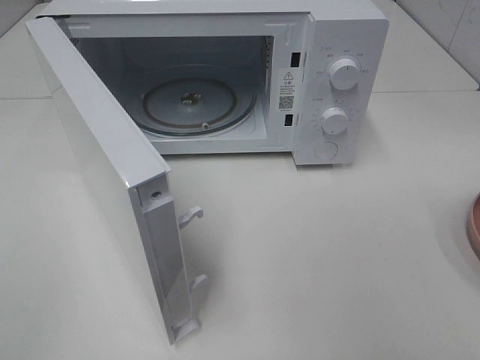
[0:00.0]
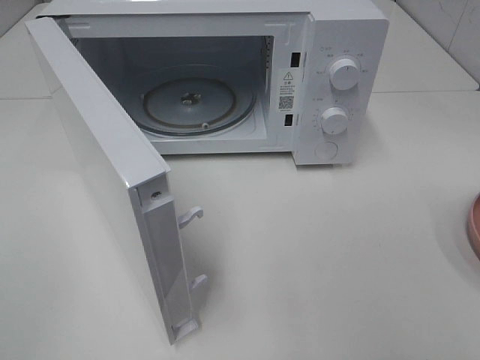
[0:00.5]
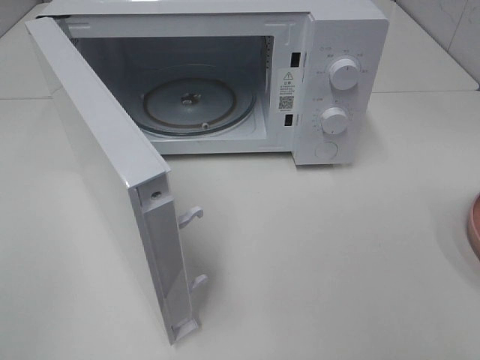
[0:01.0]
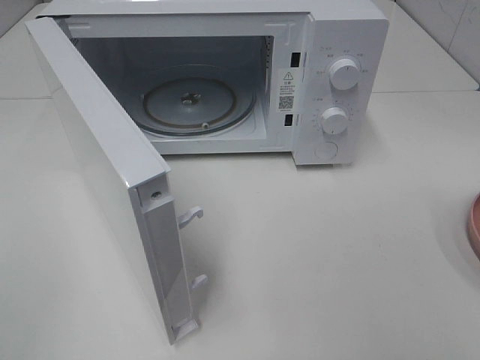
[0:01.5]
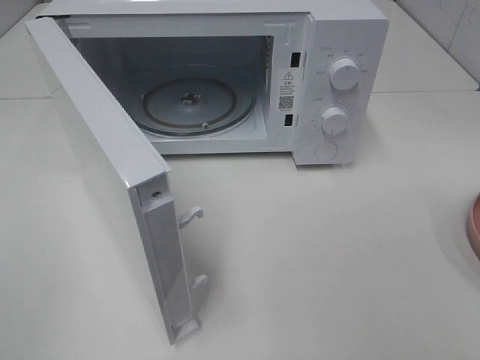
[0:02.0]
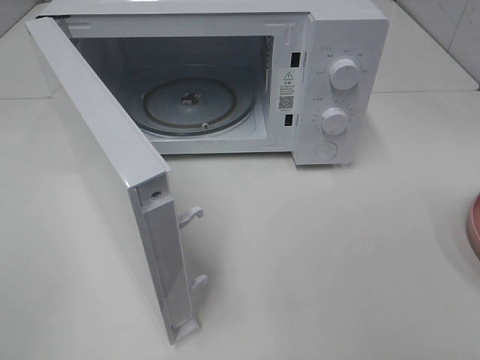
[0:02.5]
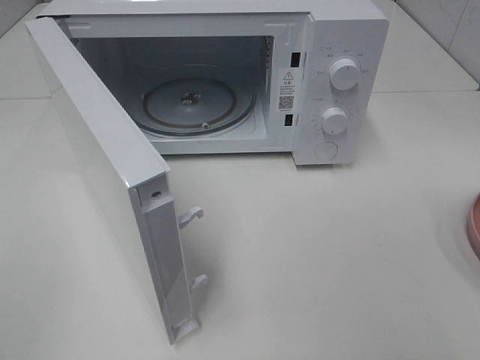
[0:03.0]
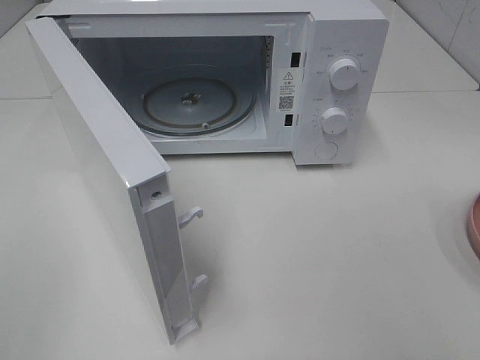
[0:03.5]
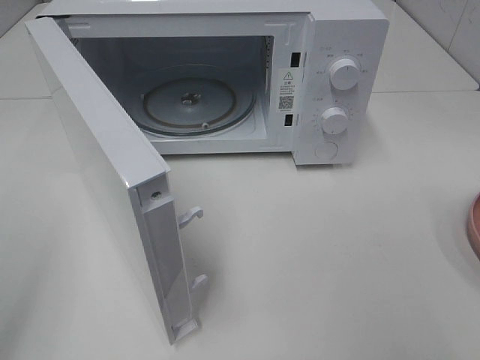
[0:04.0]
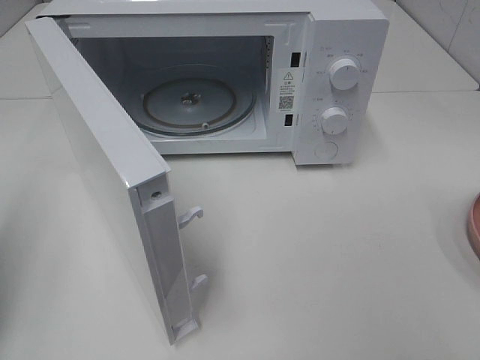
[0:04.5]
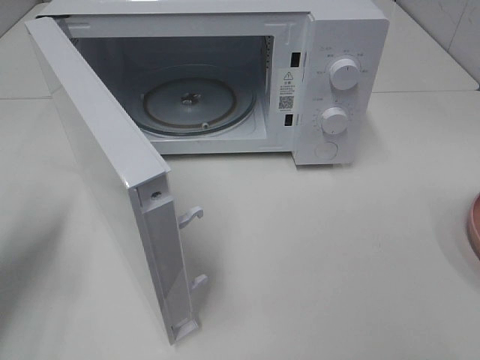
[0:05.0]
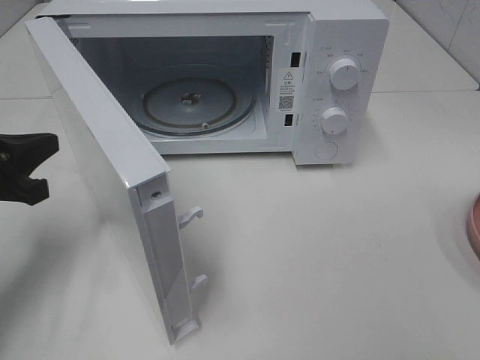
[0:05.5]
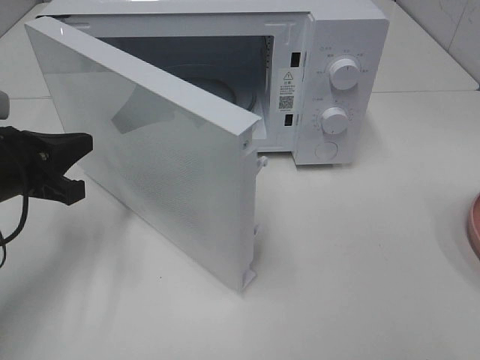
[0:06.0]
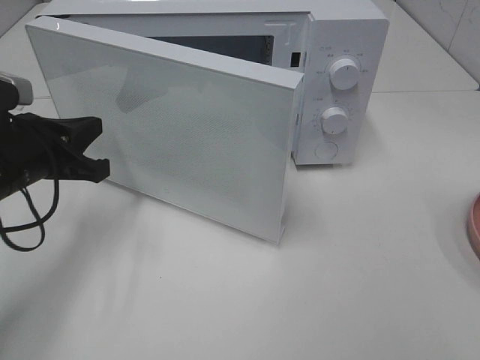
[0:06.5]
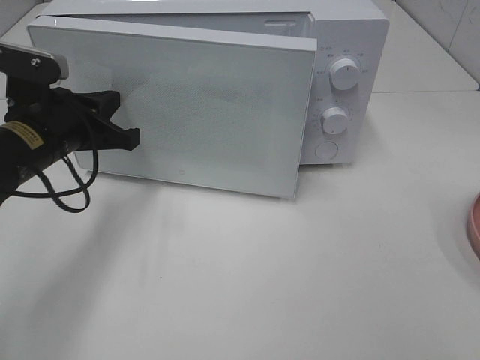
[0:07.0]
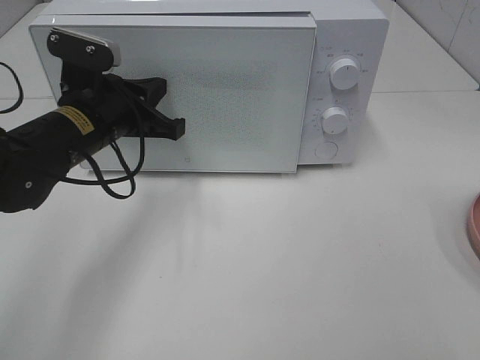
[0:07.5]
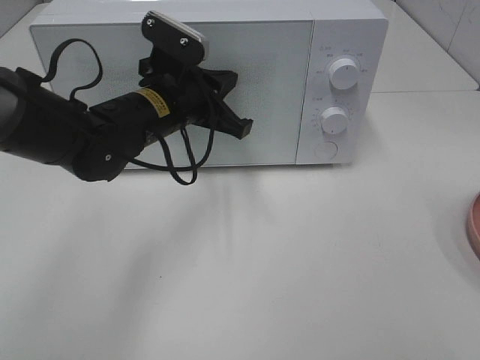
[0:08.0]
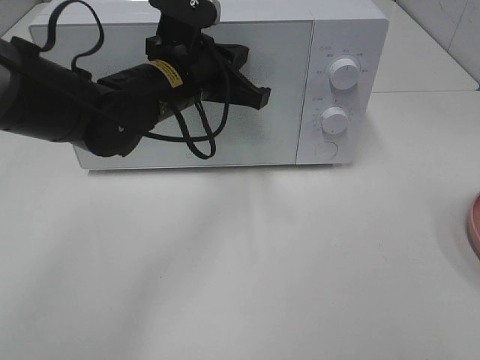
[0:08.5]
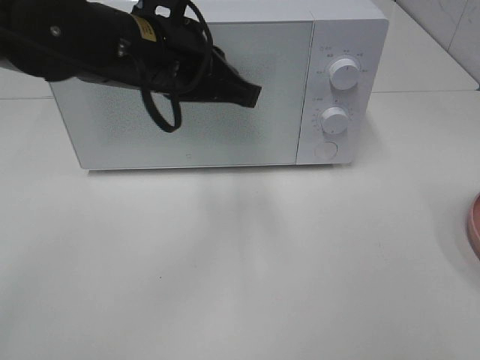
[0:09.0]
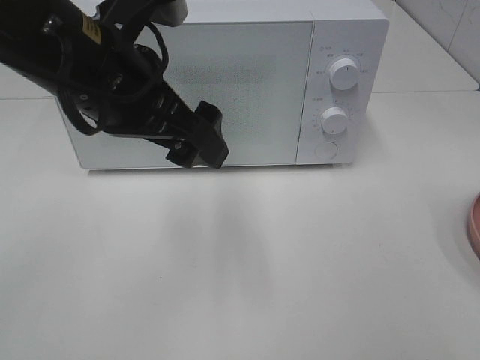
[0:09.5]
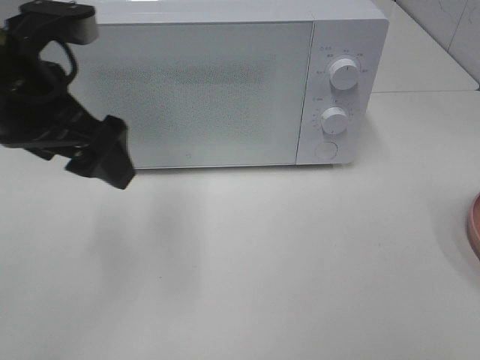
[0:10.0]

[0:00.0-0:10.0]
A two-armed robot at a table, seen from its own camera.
Task of the whole recording: Heat the burger.
Step, 0.0 to 7.5 s: Left hand: close the microwave door.
4.0 to 6.0 s: The left gripper moves forward, downward and to the right, roughly 25 cm, and closes its fingers.
6.0 to 8.0 s: The left gripper moves to the right and forward, approximately 20 cm.
8.0 to 10.0 s: The left gripper shifts about 20 cm to the left, upward and backward, and opens up.

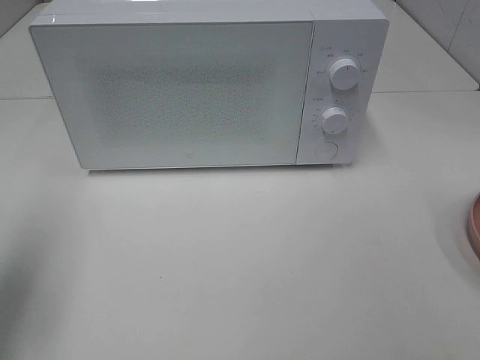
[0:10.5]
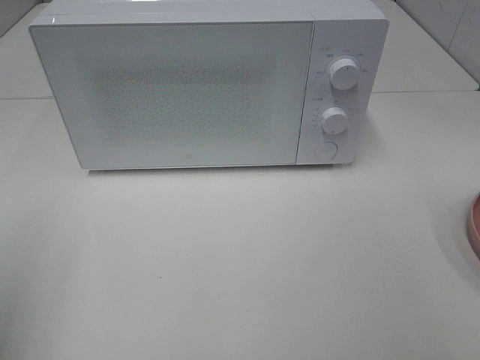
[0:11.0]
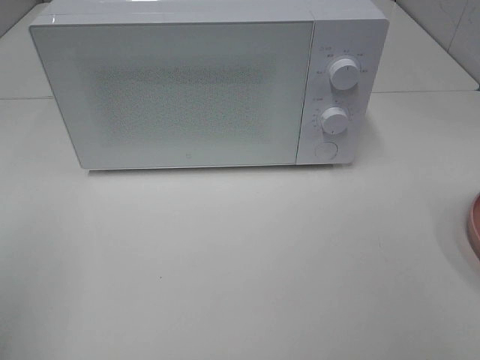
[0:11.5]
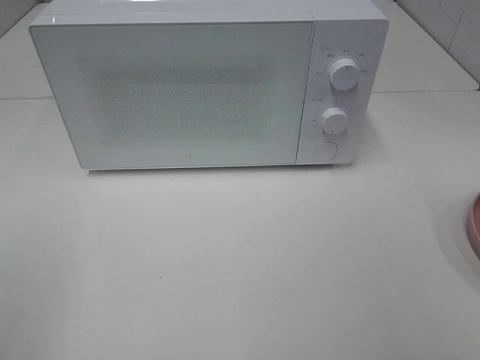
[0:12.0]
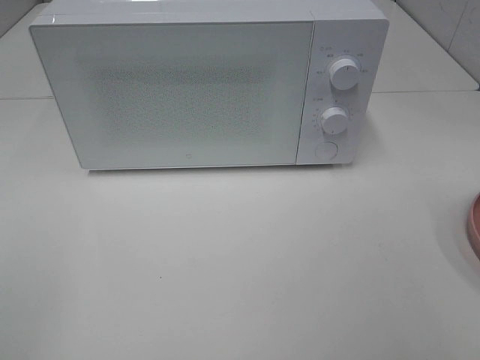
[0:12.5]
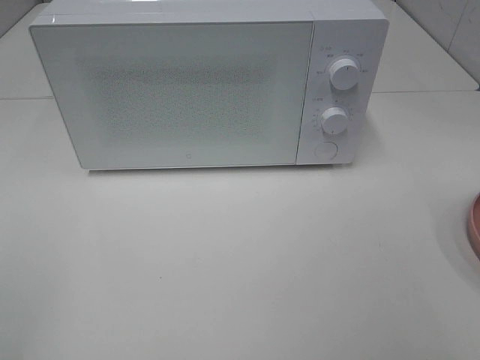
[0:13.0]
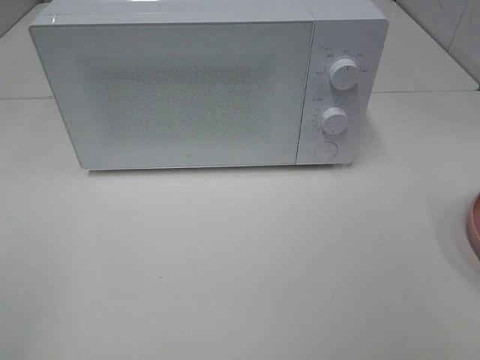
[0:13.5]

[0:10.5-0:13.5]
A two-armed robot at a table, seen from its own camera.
Task of the whole recording: Heat the burger.
10.5 to 12.0 s: The left gripper heads backward, covering roughly 15 cm.

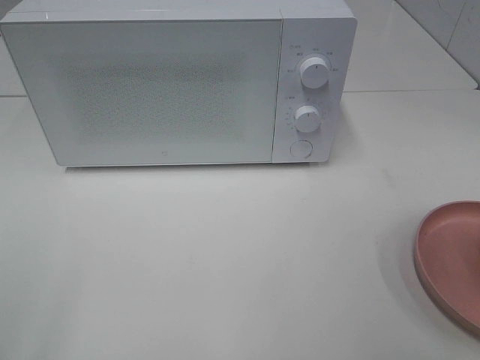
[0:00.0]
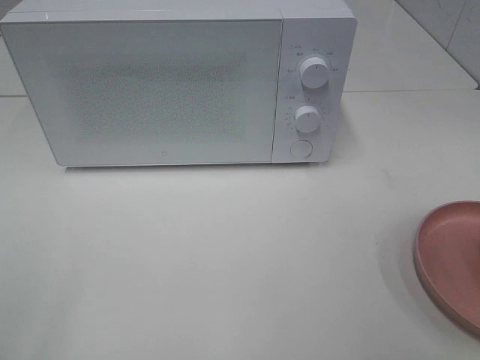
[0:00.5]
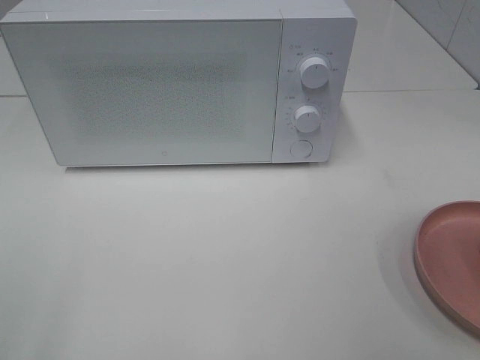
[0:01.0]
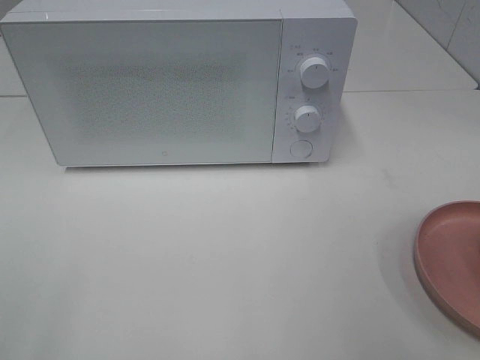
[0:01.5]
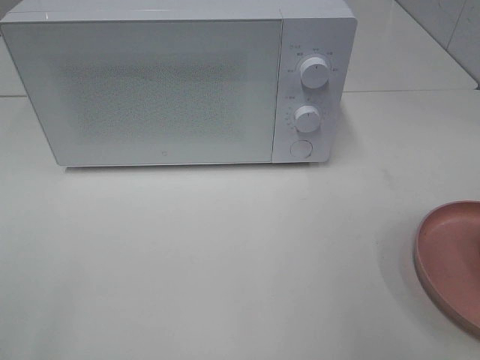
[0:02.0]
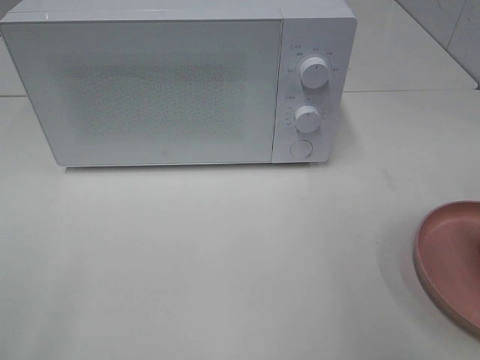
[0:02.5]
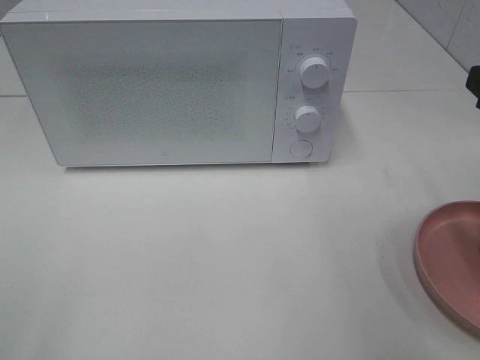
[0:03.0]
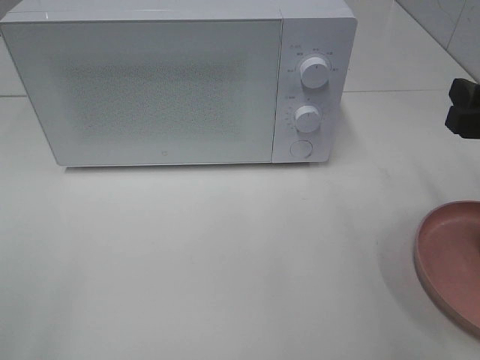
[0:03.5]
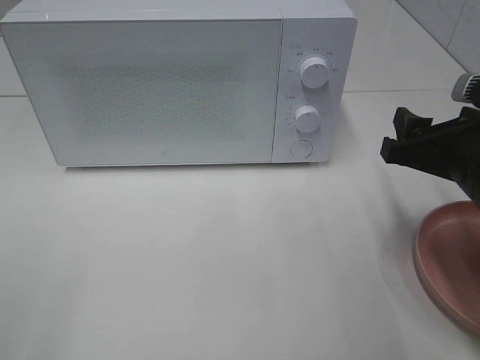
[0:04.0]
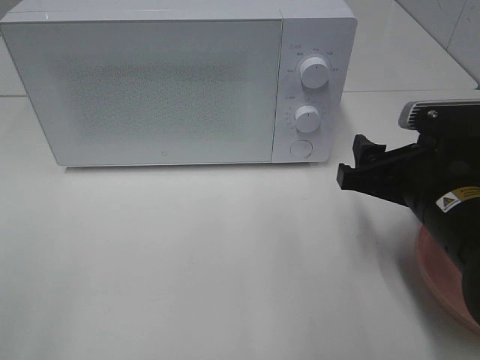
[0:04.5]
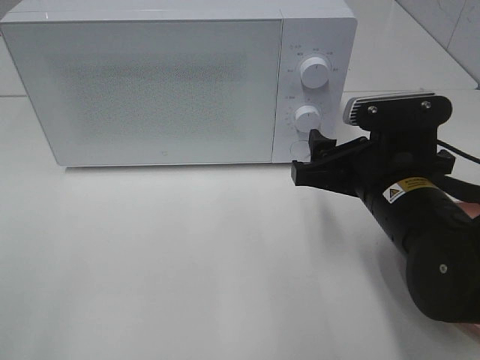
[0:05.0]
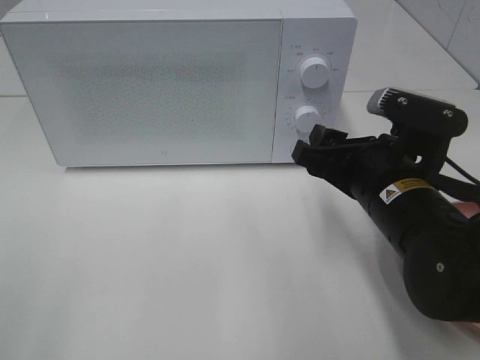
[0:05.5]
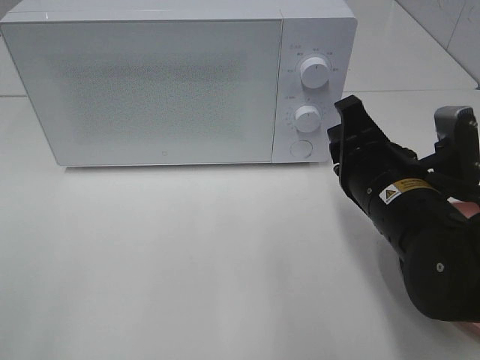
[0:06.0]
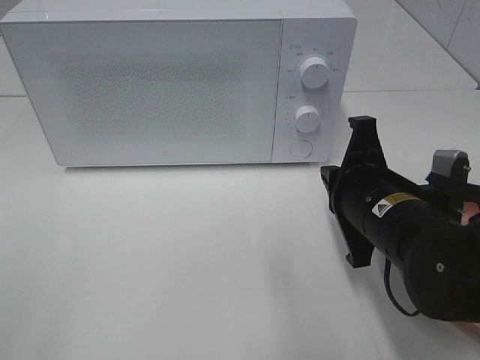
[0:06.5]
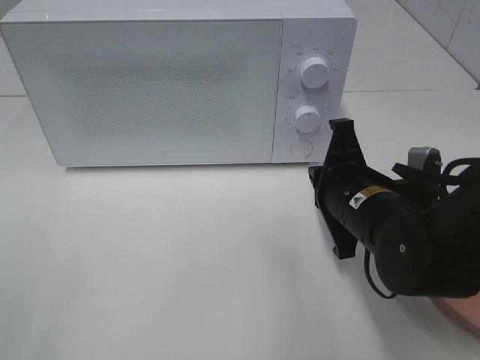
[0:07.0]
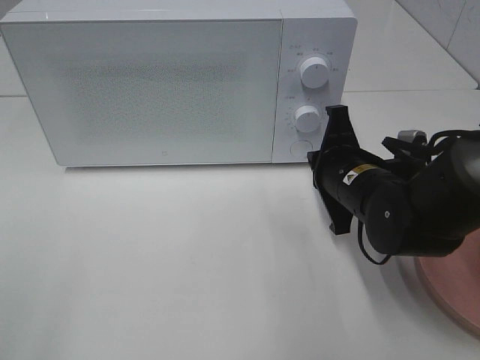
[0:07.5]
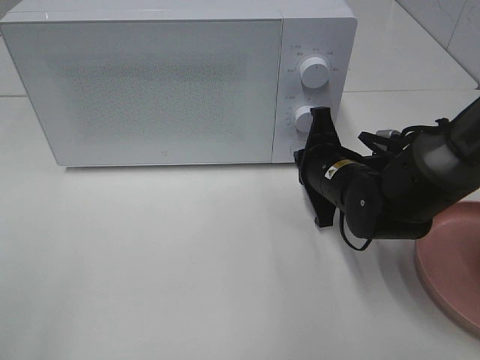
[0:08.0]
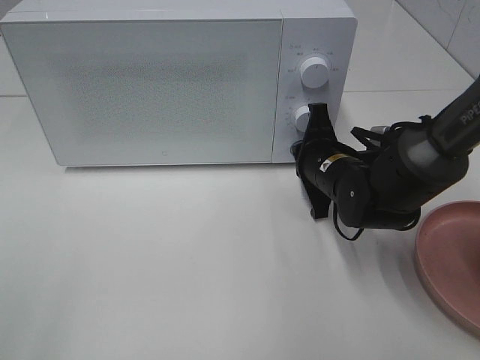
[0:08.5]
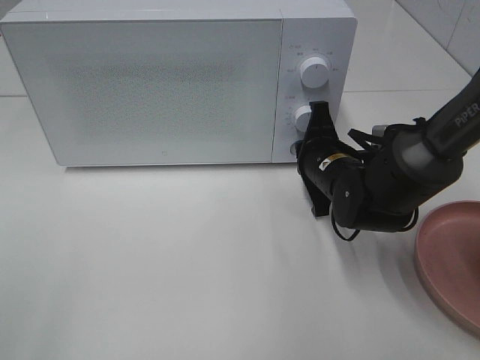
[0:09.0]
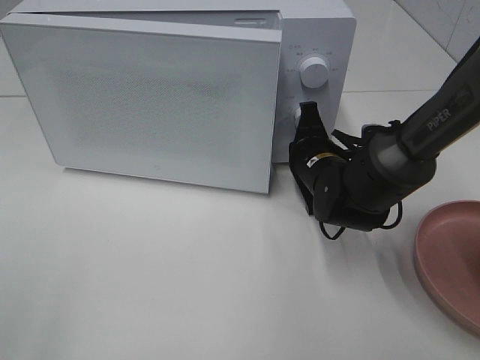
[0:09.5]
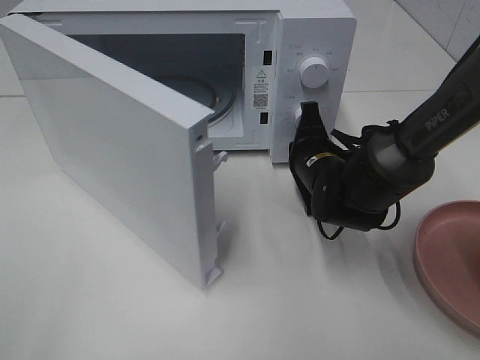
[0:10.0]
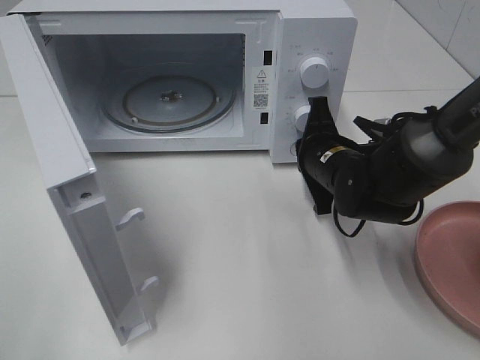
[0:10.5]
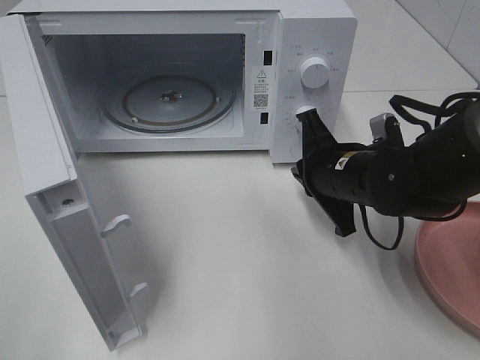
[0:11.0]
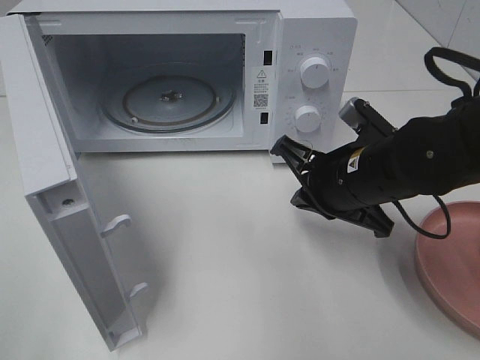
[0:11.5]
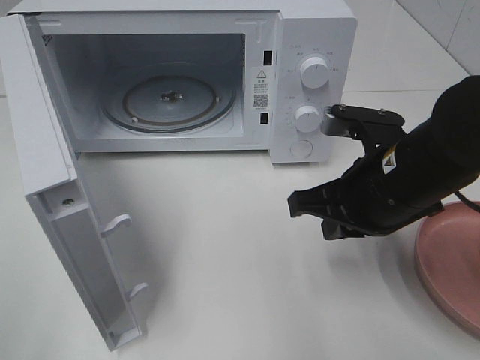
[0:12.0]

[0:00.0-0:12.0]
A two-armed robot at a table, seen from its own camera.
Task of the whole recording: Heat the burger.
Step, 0.0 to 10.5 s: Right hand: press the switch.
2.0 to 4.0 s: The right gripper heads downward, forward and to the left, covering approximately 20 cm.
4.0 to 6.0 s: The right gripper goes roughly 10 cm to the left, and closes up.
6.0 to 8.0 s: The right gripper shifts approximately 10 cm forward and downward.
10.0 to 12.0 s: The right gripper is displaced backward and upward by about 15 cm.

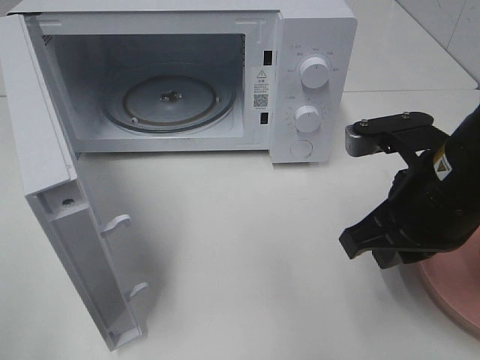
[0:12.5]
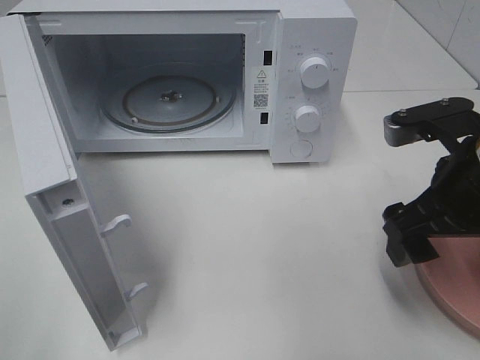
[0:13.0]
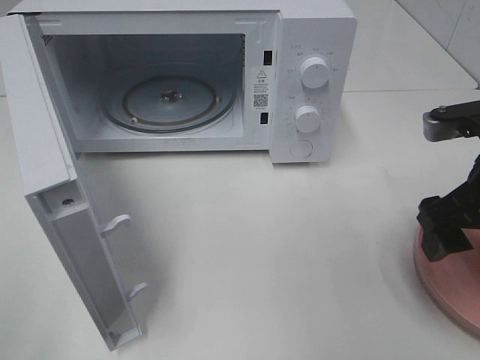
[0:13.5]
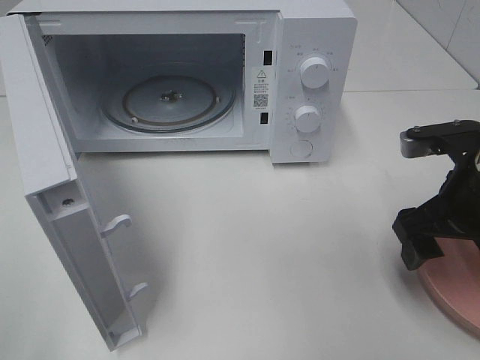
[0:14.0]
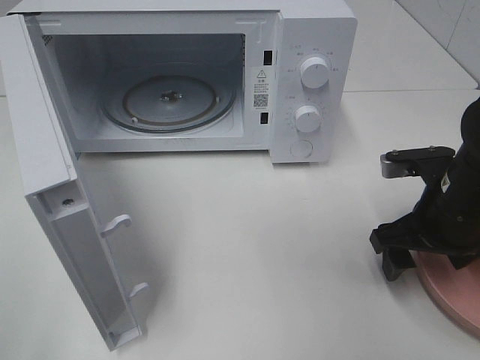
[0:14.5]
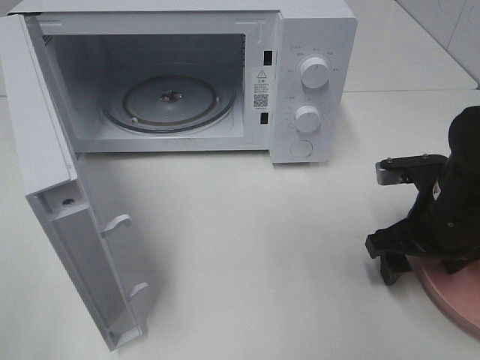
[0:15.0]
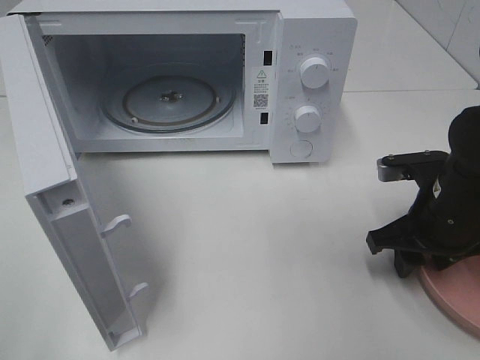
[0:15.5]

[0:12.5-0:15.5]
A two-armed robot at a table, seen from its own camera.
Task of the whole recording: Heat the burger.
12.5 to 14.0 s: The right gripper heads to the right, covering some 5 cm, and opens up.
14.0 to 15.5 s: The right gripper moves downward, about 5 cm, and closes.
